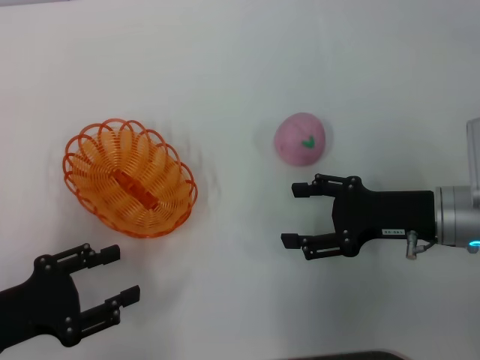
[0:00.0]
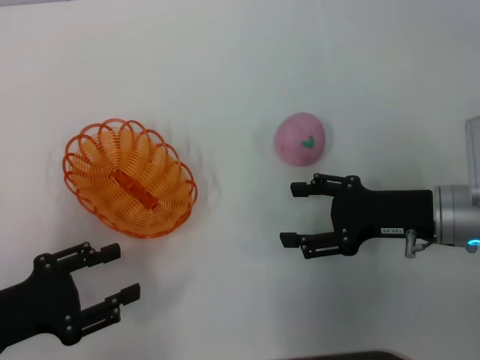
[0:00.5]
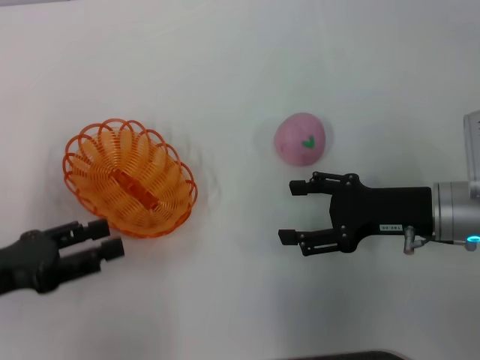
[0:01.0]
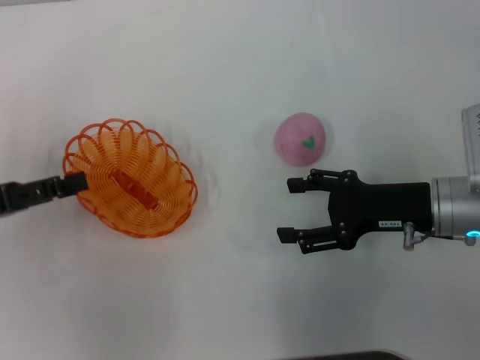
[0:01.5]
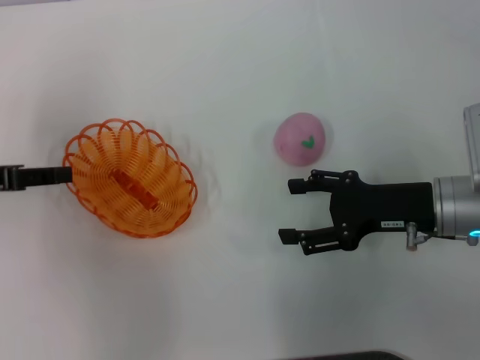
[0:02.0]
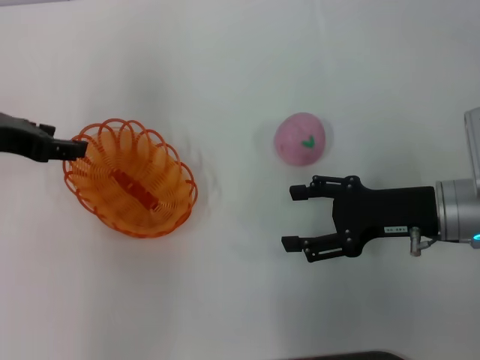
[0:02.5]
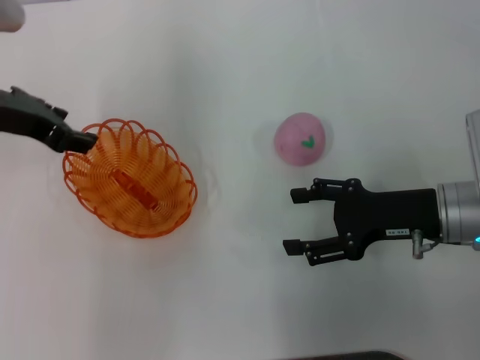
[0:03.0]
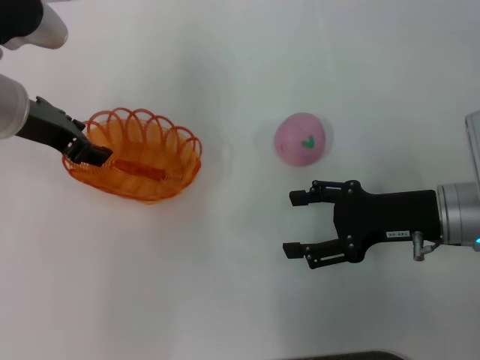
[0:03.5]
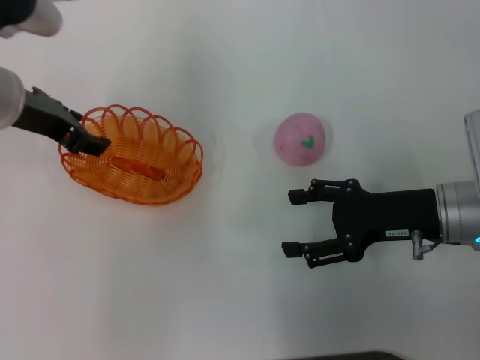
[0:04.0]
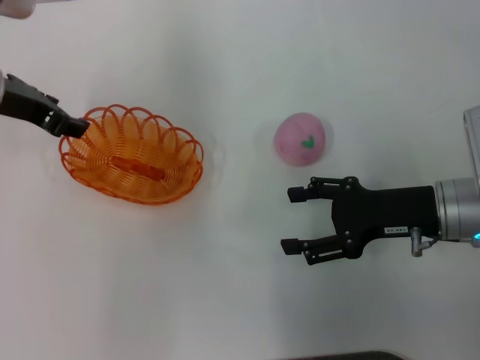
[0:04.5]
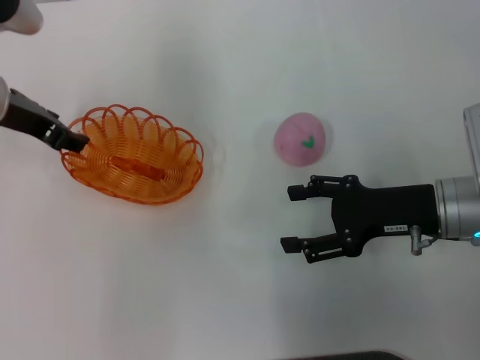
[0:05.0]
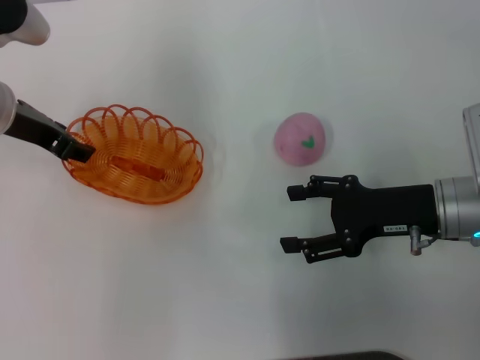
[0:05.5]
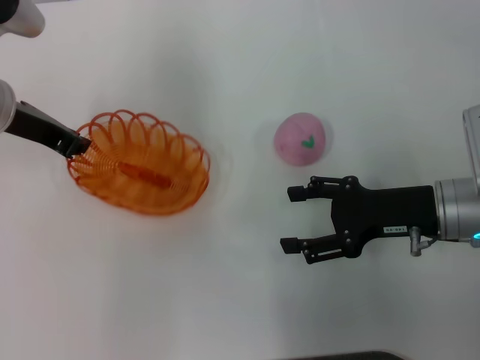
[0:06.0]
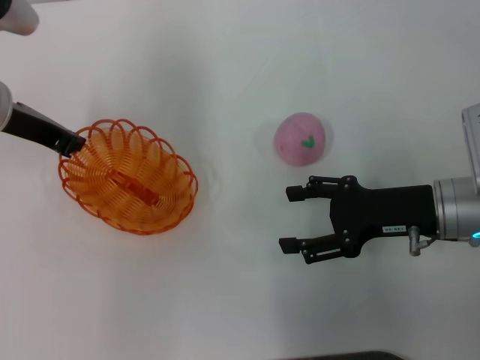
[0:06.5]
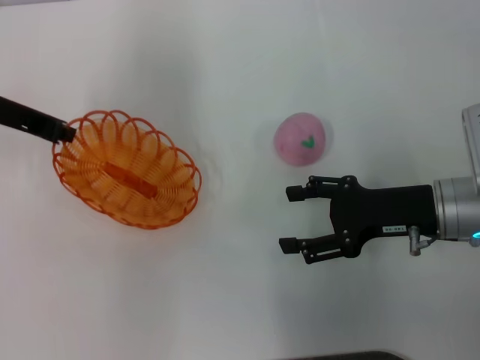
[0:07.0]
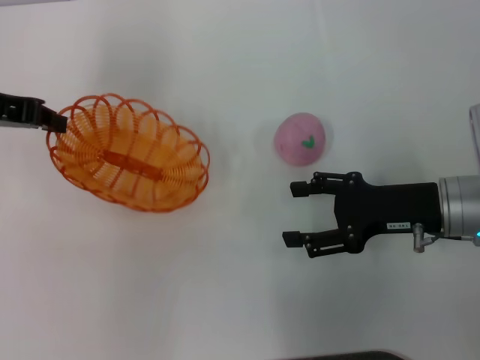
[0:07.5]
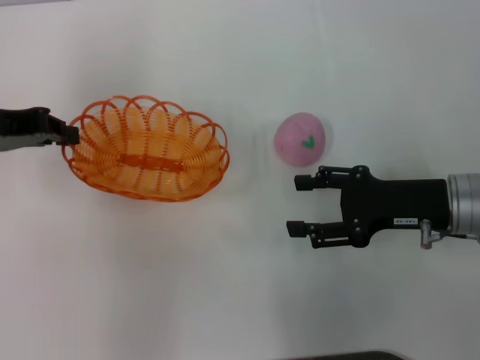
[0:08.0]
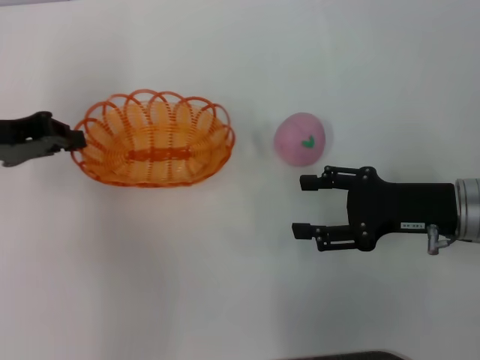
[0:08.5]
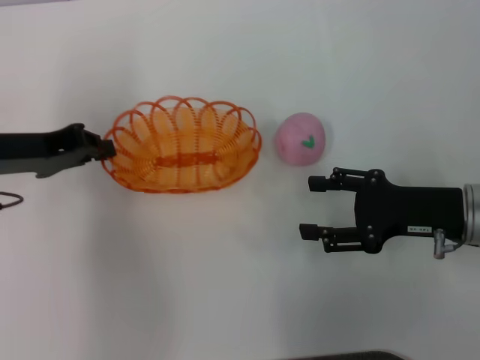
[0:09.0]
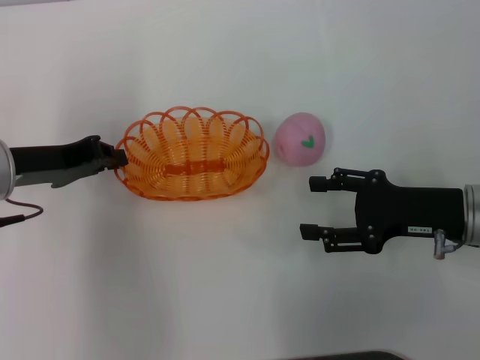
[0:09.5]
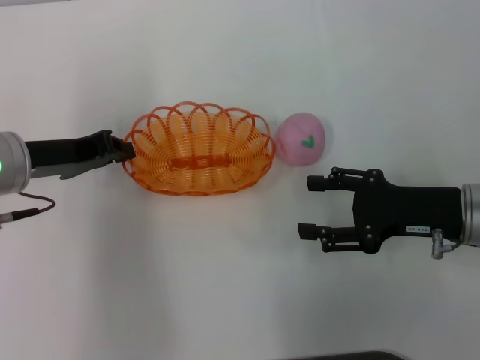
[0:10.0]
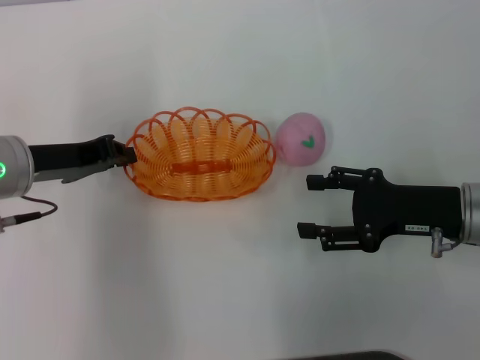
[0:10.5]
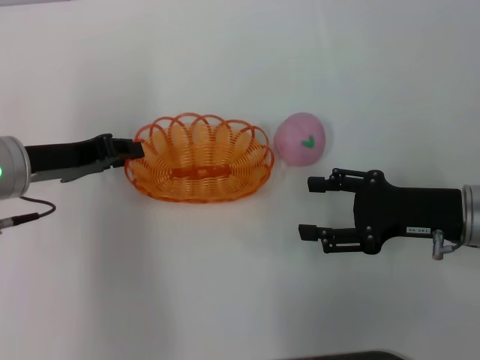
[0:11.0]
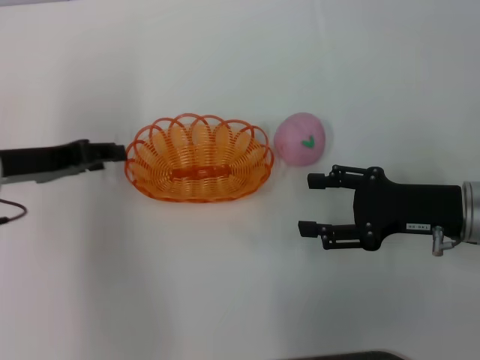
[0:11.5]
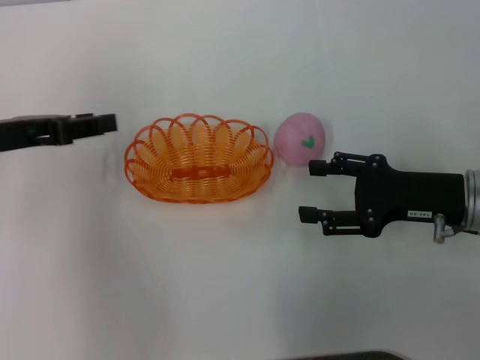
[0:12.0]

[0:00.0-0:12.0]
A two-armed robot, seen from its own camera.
Step, 0:00.0 to 0:07.5: Pick up the basket with the left gripper.
Step, 0:08.0 to 0:11.5: Place the basket in the center of view with the left gripper.
0:00.0 to 0:02.0: The left gripper is displaced forward and upward by roughly 15 cm.
0:02.0 to 0:04.0: The left gripper heads to the right and forward, covering some 15 cm.
0:04.0 to 0:06.0: The left gripper closes up.
0:06.0 to 0:08.0: The left gripper moves to the left, roughly 5 cm, and closes its fingers.
0:08.0 to 0:10.0: The left gripper heads to the right and downward, covering roughly 10 cm.
0:10.0 to 0:12.0: The left gripper shifts by approximately 5 cm, and opens up.

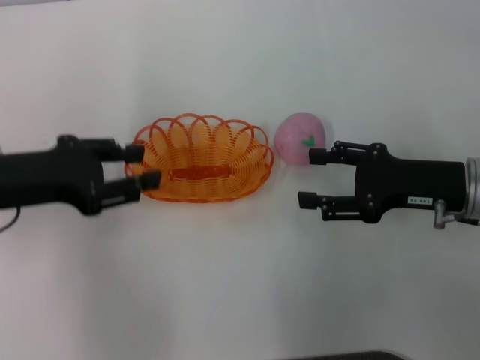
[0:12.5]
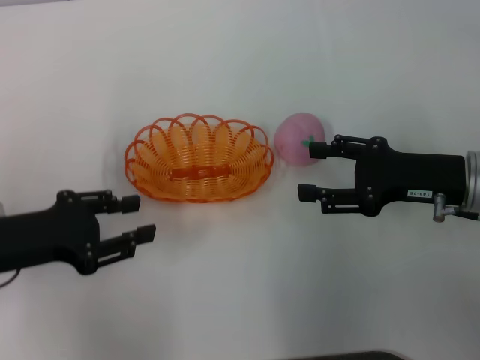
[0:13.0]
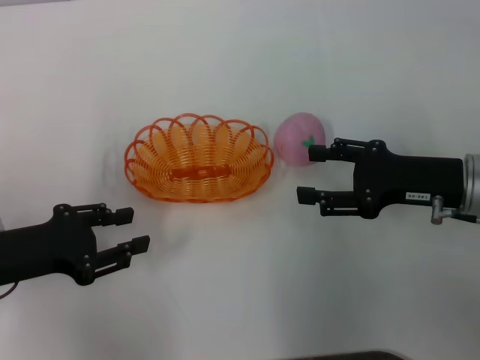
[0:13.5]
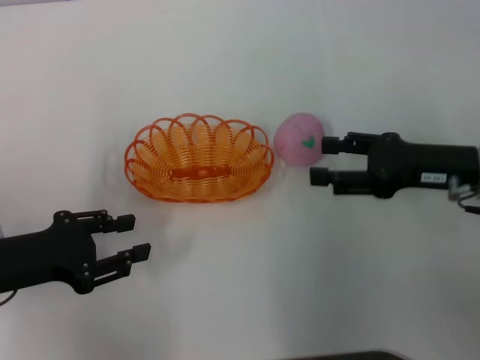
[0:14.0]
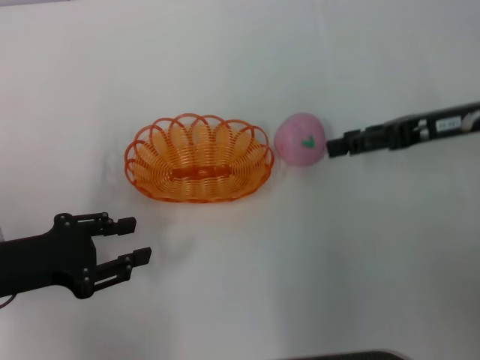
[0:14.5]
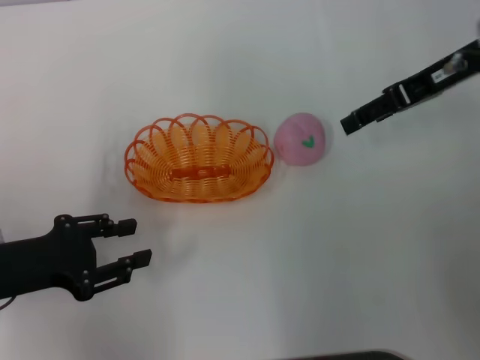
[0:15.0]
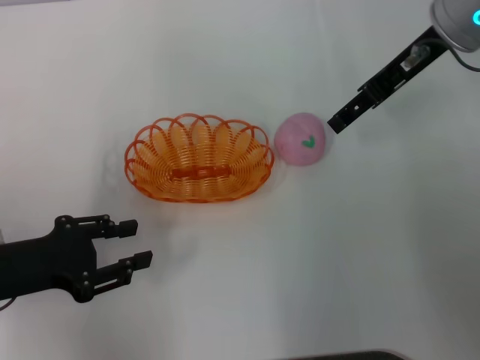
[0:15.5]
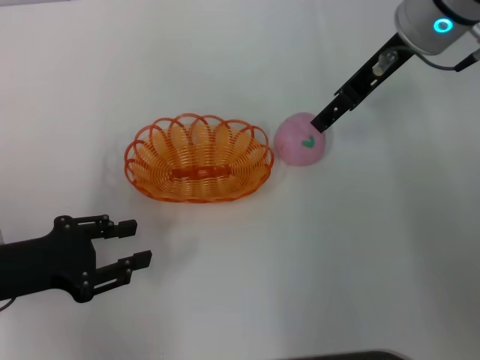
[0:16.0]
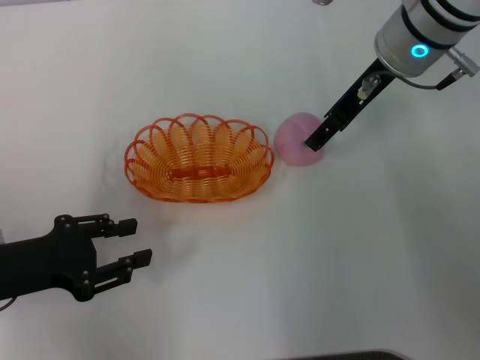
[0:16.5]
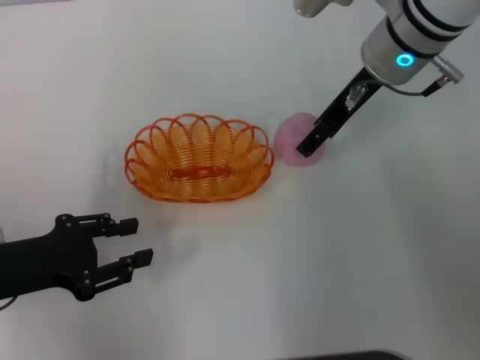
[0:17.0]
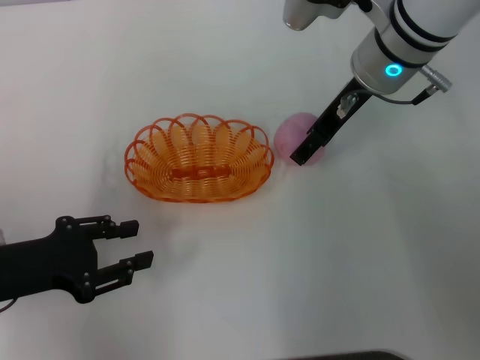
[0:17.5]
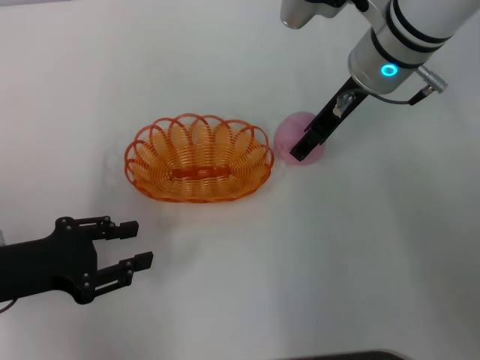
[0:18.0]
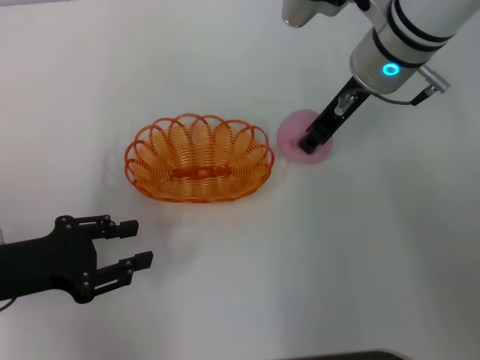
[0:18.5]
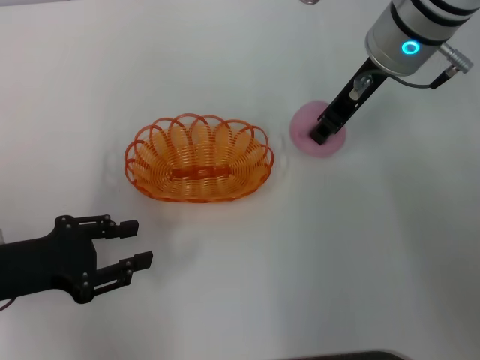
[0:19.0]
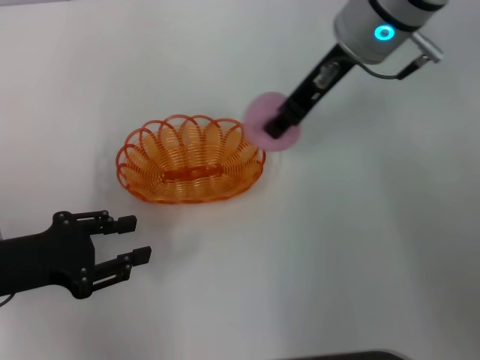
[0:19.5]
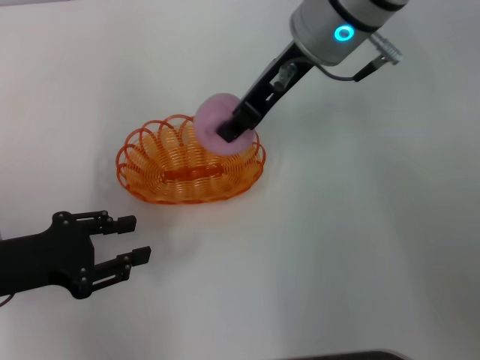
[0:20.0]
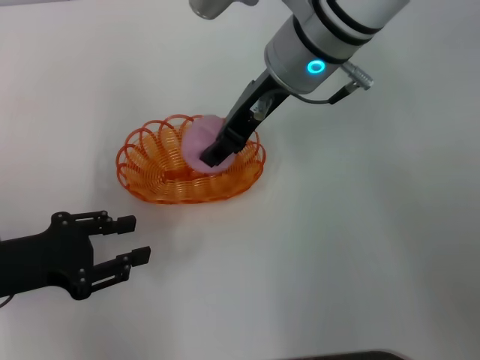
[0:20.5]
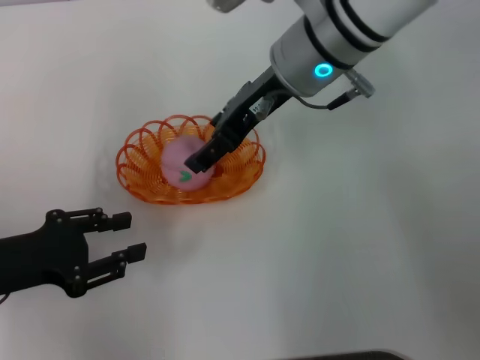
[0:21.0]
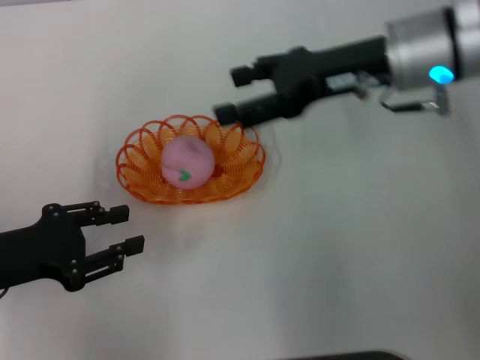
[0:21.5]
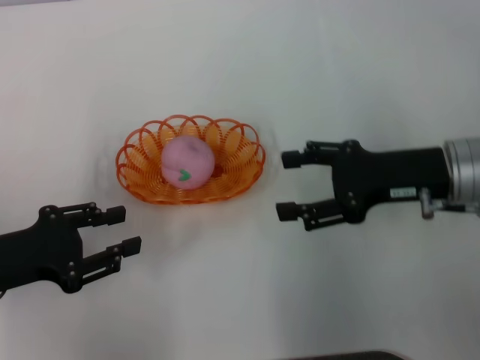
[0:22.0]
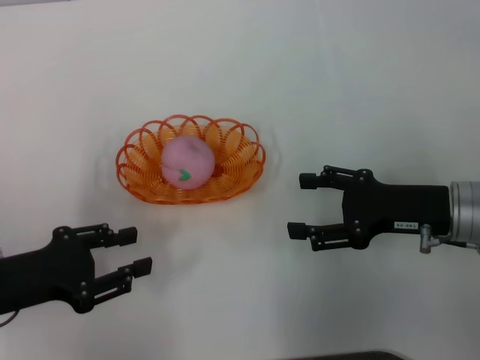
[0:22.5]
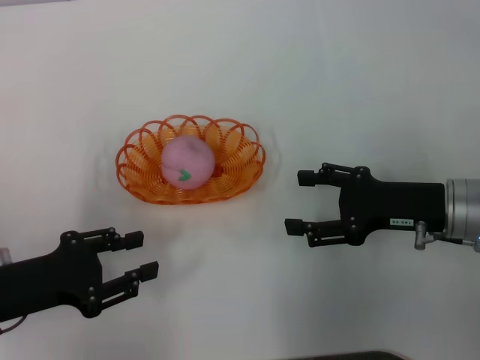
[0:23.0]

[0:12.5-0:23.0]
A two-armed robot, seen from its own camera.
Step, 0:12.5 to 0:19.0: Pick up the peach with the right gripper.
Step, 0:19.5 to 0:22.0: Place the peach into the basket with the right gripper.
0:12.5 to 0:14.5: The right gripper shifts roughly 10 cm upward and forward. Meanwhile the left gripper travels downward and backward by roughly 10 cm.
0:14.5 to 0:16.5: The right gripper goes roughly 15 cm to the left and forward.
0:16.5 to 0:19.0: The right gripper closes.
0:19.0 to 0:21.0: The right gripper goes about 5 cm to the left, and opens its fingers.
0:21.0 to 0:23.0: The right gripper travels to the right, downward and backward by approximately 25 cm.
